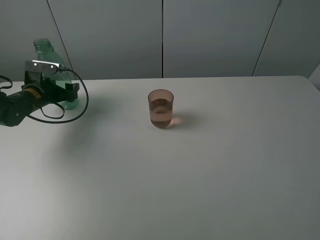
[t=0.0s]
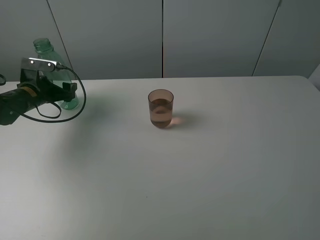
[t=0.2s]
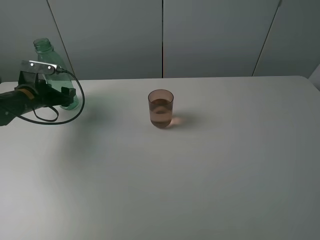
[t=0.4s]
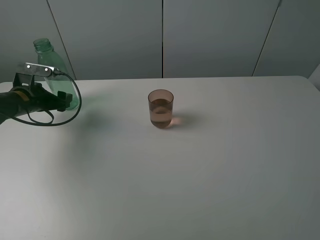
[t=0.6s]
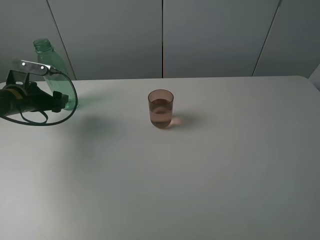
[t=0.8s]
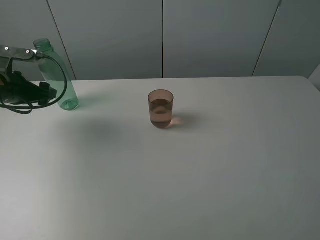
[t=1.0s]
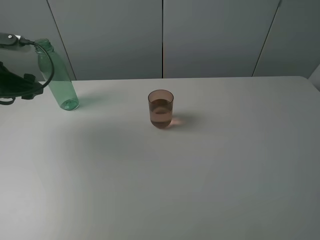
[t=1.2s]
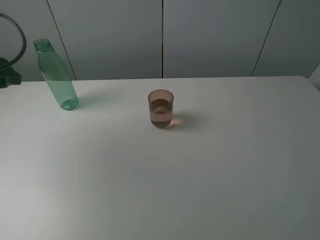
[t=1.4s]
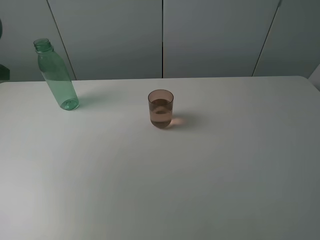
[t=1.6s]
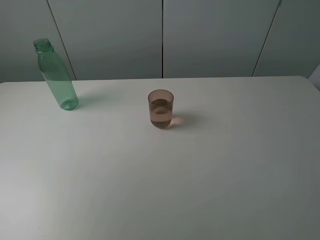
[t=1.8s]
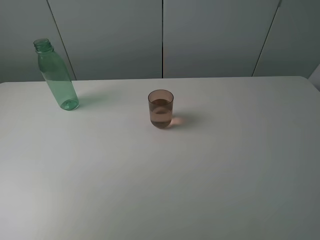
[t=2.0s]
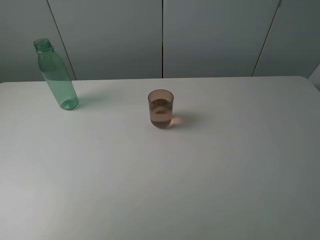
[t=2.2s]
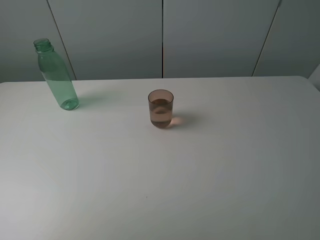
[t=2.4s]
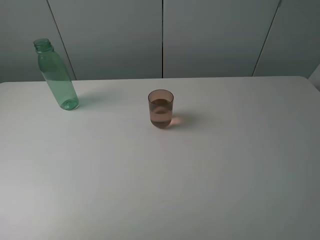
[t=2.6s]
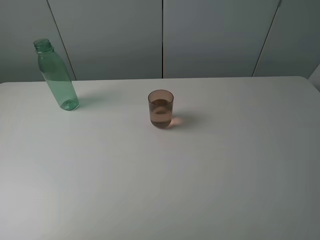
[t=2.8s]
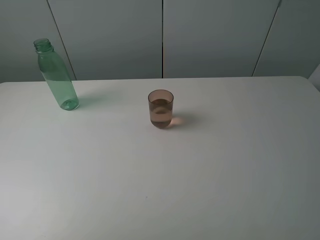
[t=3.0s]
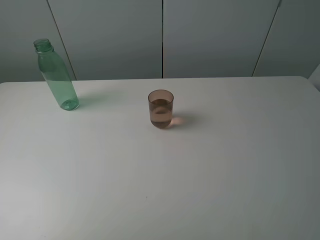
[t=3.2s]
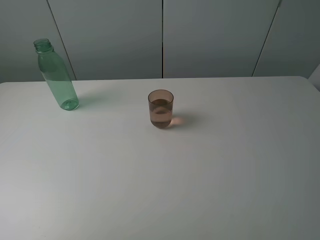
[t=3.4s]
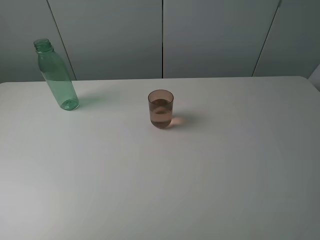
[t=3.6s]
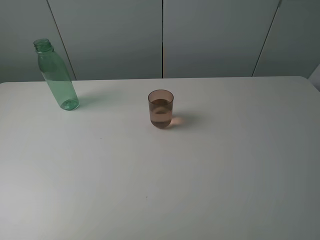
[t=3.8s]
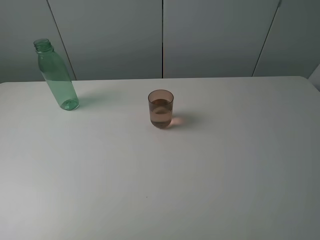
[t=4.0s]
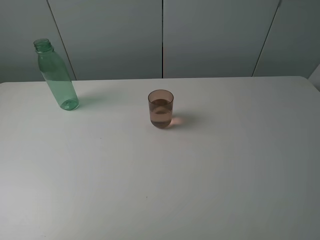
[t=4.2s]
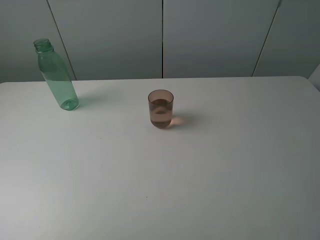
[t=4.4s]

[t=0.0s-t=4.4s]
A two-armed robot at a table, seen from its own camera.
Task of the whole recording: pick up the bottle filled with water and pour it into the pink cup.
t=0.0s to t=1.4s: The left gripper travels upward and backward by about 25 cm.
t=1.4s to t=3.0s: The left gripper shifts roughly 25 cm backward.
